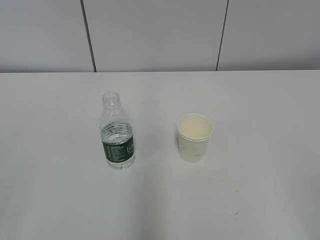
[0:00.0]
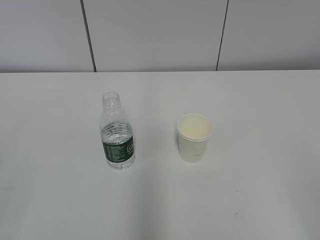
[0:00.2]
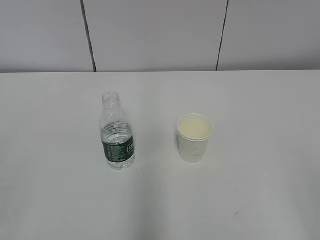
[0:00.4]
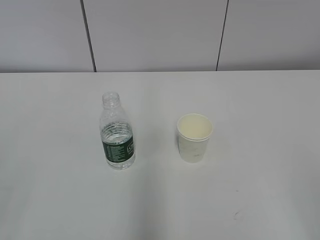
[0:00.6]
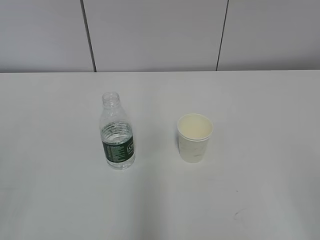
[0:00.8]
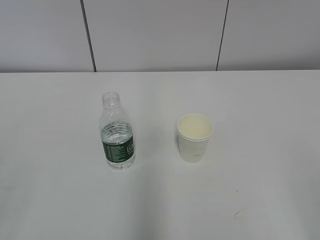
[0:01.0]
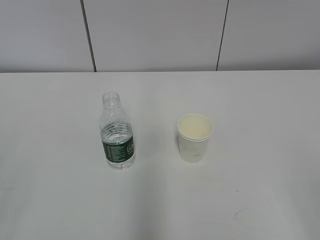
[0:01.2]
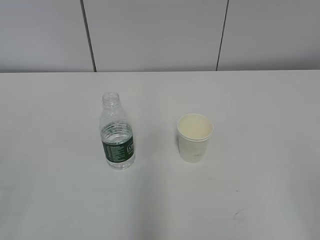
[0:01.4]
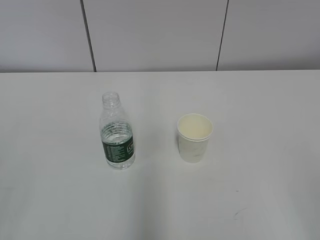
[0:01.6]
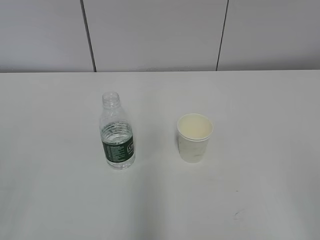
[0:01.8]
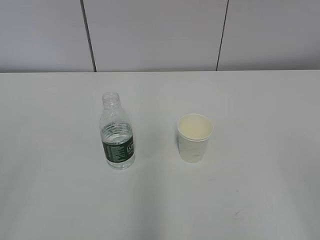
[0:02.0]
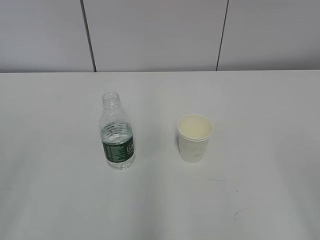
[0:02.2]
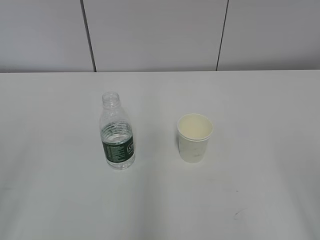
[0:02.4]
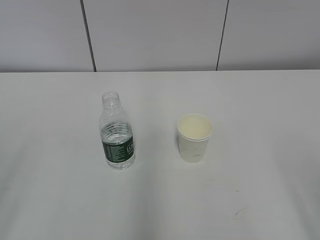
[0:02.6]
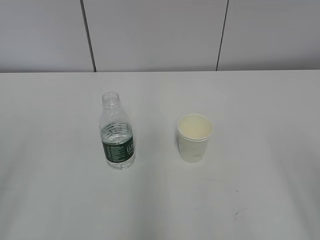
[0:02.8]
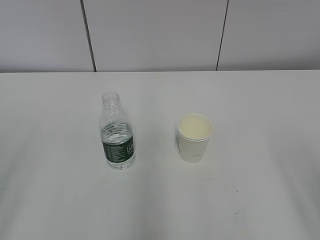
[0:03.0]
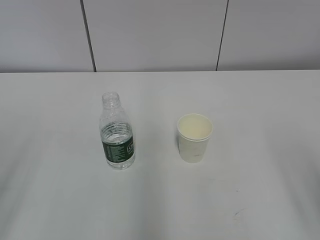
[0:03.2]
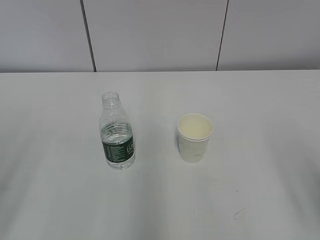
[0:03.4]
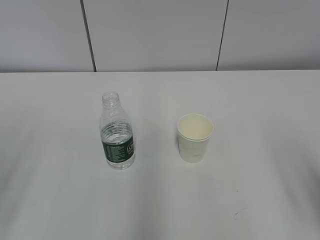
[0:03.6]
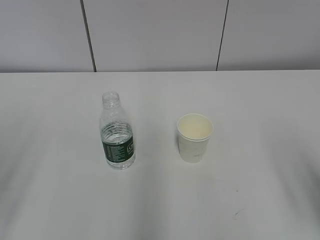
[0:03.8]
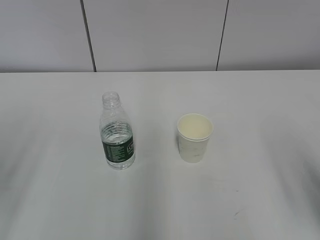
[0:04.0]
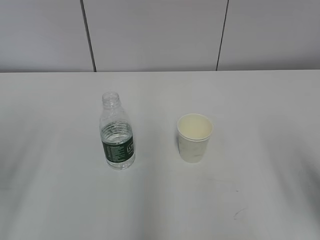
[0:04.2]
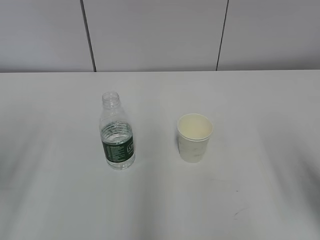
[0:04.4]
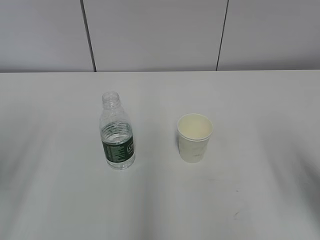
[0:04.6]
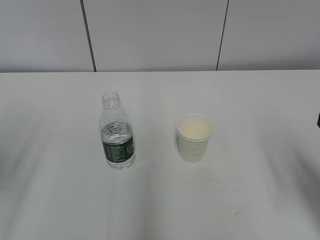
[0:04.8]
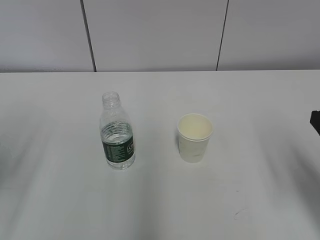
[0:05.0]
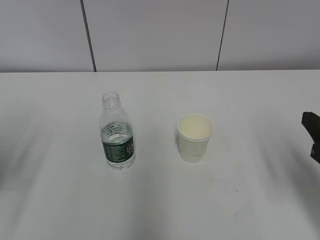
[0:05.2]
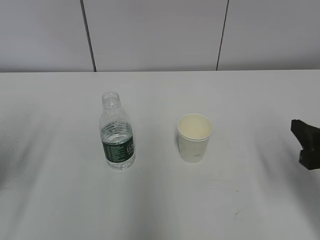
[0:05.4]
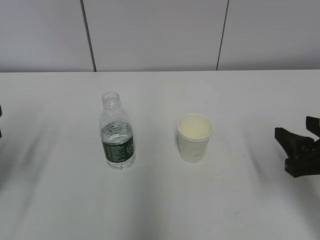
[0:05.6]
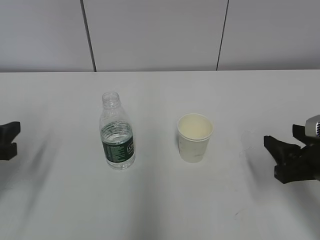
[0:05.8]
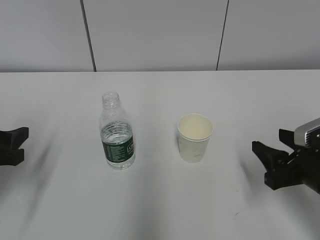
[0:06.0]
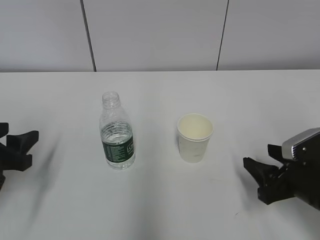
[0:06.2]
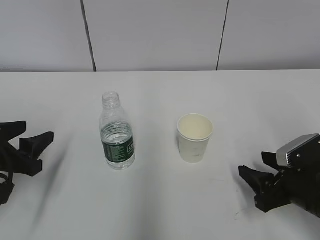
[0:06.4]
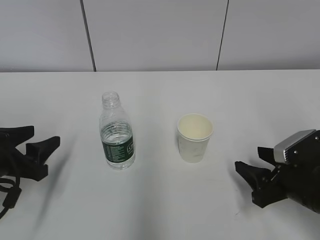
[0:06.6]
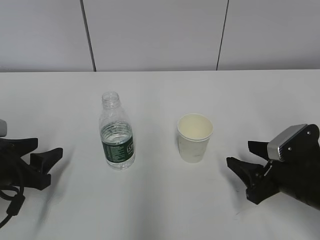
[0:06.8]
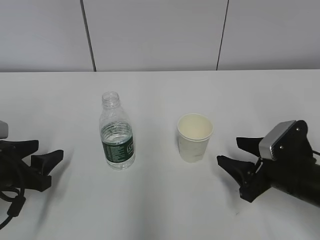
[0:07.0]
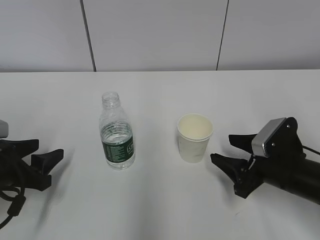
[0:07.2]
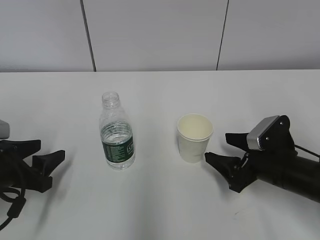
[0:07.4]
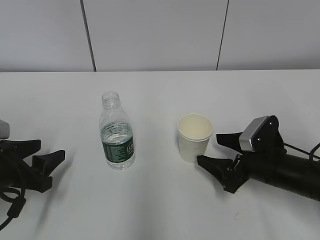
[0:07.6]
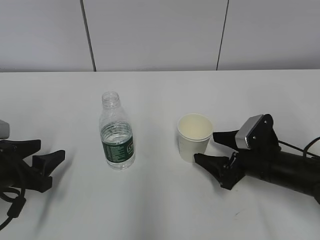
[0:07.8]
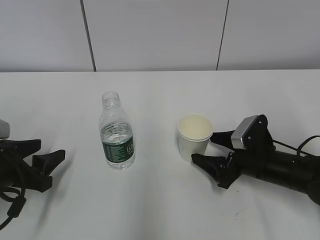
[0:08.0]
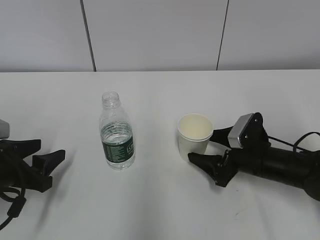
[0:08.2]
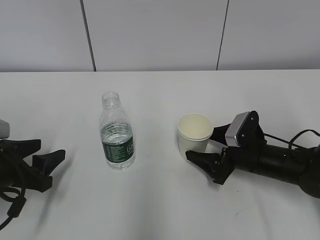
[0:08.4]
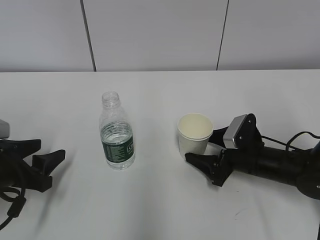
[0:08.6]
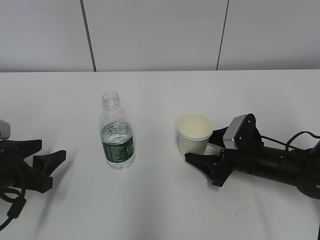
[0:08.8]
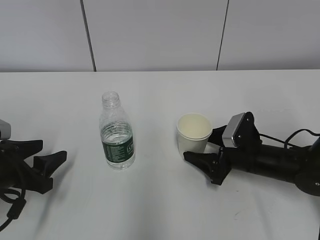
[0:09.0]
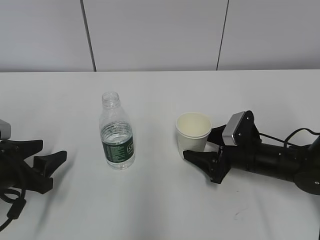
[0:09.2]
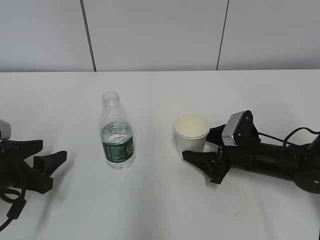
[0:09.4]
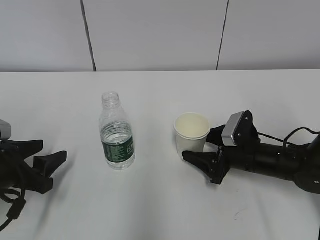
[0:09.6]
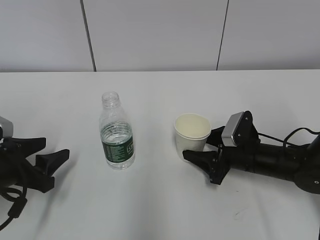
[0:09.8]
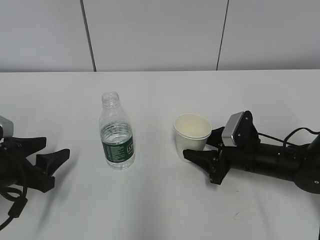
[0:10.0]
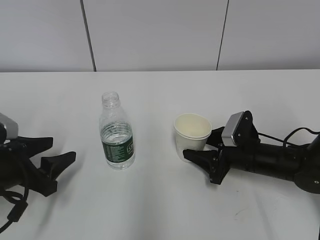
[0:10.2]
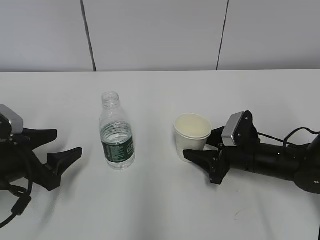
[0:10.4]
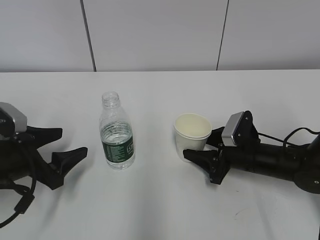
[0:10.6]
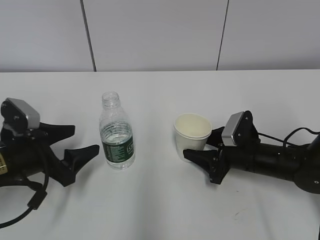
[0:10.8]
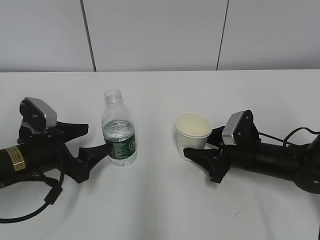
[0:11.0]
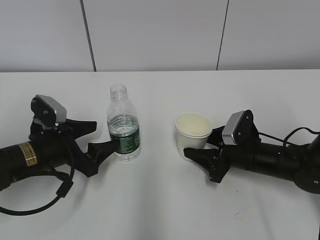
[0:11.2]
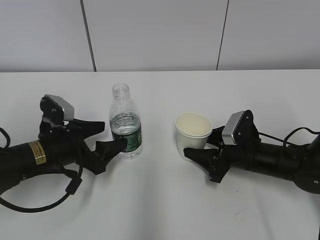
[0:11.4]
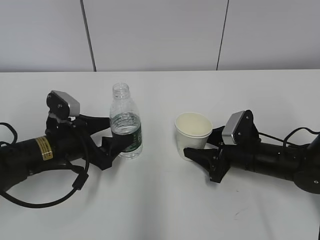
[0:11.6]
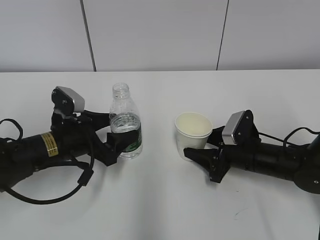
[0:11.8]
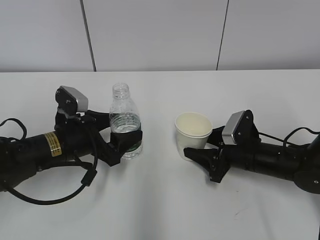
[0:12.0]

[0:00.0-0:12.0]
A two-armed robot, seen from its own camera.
Step, 0:00.0 to 0:08.0: Grab the paper cup with the right hand.
Step, 0:08.2 to 0:11.0: Grab the water bottle with the left hand.
0:03.0 to 0:04.4: The right gripper goes about 5 cm forward.
0:04.4 to 0:06.0: The two grippers go approximately 15 cm downward and forward.
0:06.0 to 0:07.6: The left gripper is displaced downward by roughly 5 cm. The right gripper moves forward and downward, approximately 10 cm, and opens up.
0:07.6 to 0:09.0: The right gripper ends up roughly 5 cm from where it was, and closes its fingers.
0:09.0 to 0:10.4: The right gripper closes its fingers.
0:10.4 to 0:12.0: The left gripper travels to the right and forward by some 10 cm.

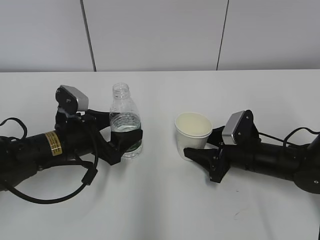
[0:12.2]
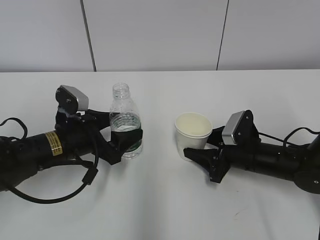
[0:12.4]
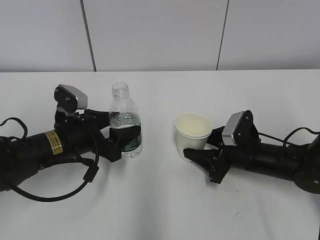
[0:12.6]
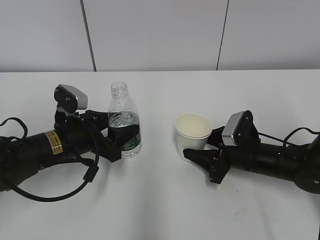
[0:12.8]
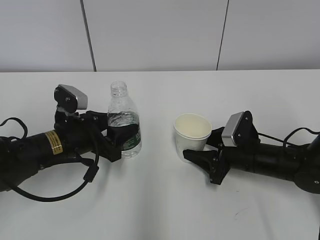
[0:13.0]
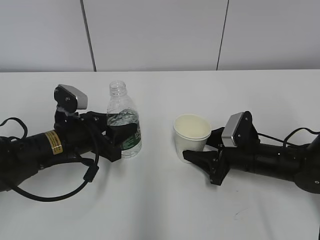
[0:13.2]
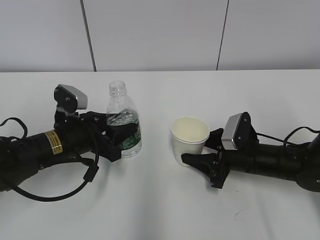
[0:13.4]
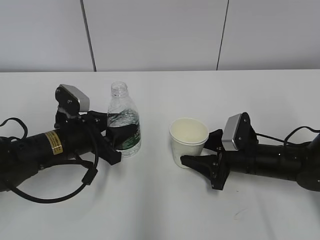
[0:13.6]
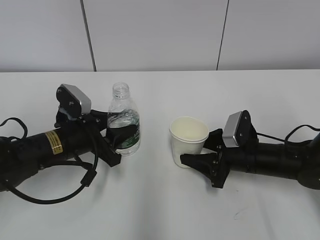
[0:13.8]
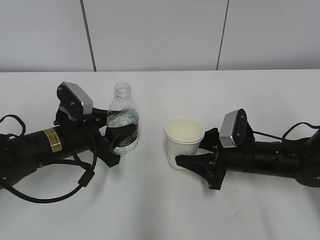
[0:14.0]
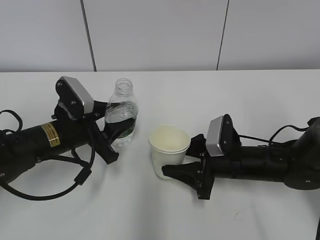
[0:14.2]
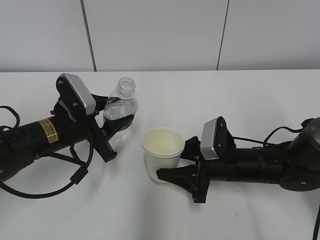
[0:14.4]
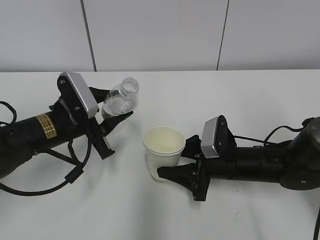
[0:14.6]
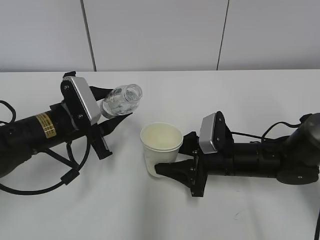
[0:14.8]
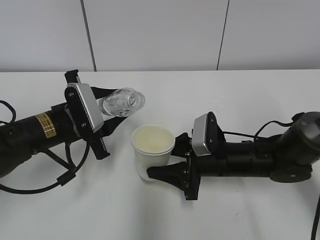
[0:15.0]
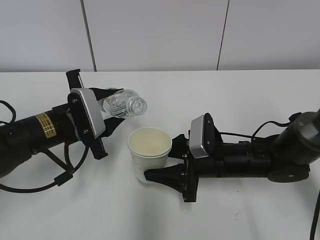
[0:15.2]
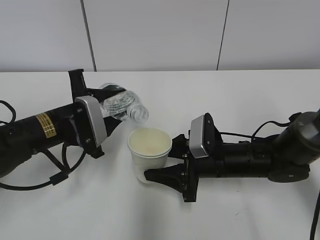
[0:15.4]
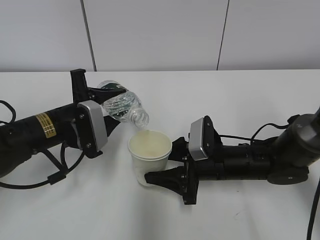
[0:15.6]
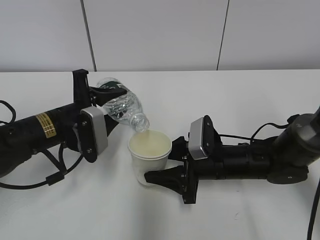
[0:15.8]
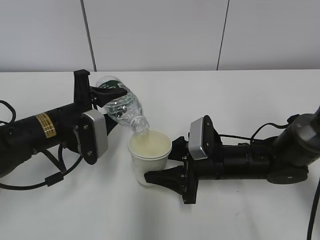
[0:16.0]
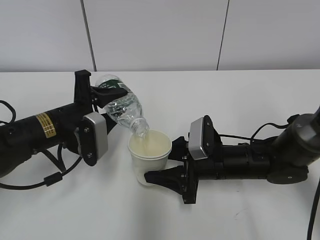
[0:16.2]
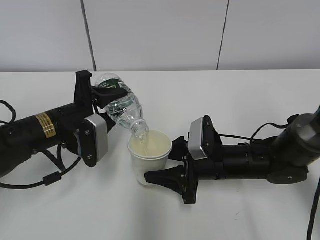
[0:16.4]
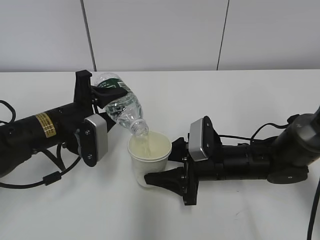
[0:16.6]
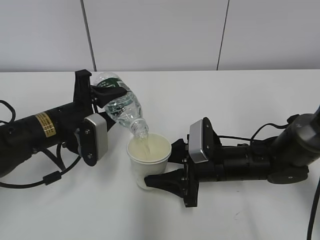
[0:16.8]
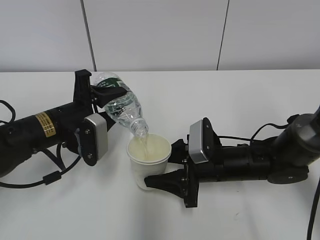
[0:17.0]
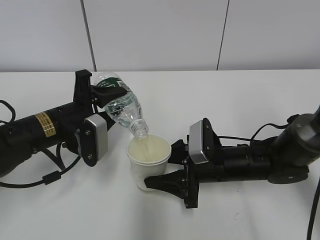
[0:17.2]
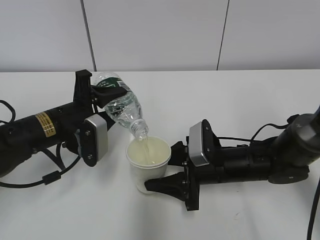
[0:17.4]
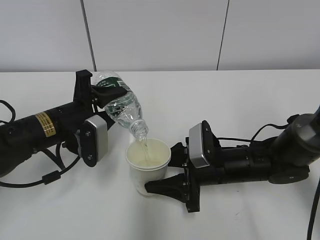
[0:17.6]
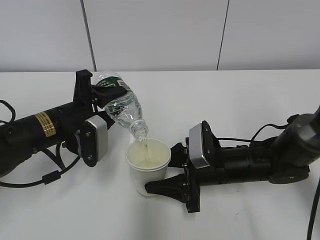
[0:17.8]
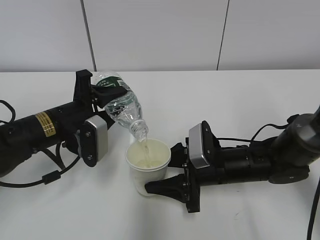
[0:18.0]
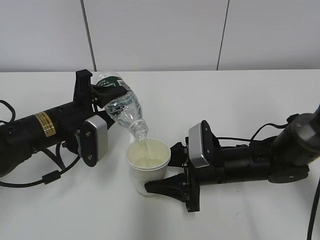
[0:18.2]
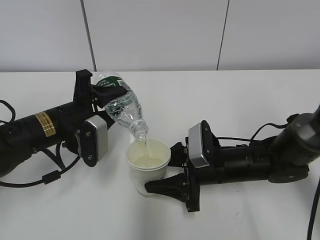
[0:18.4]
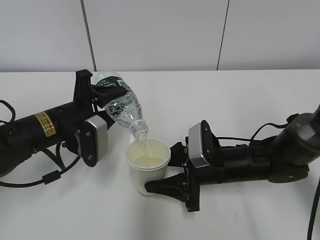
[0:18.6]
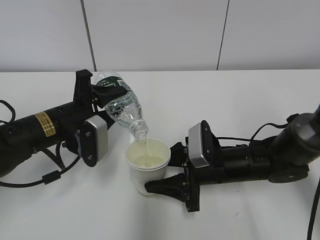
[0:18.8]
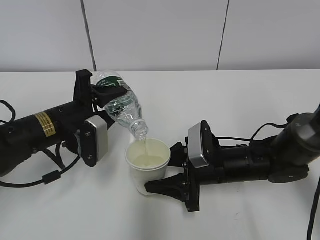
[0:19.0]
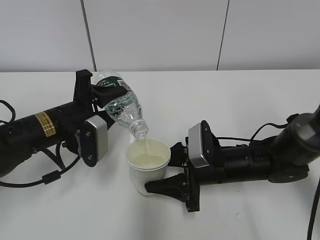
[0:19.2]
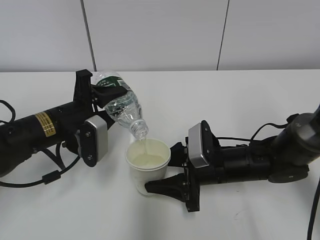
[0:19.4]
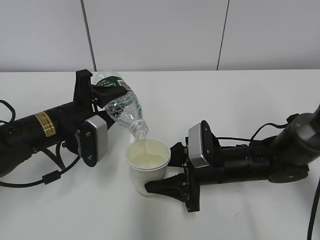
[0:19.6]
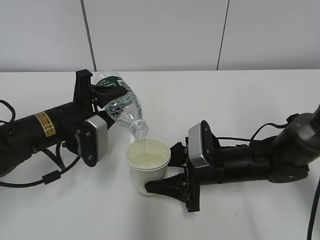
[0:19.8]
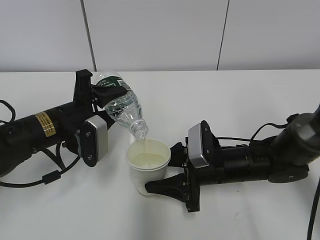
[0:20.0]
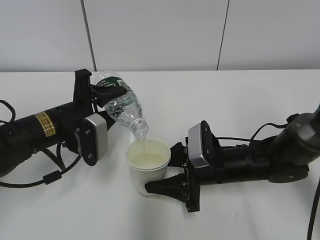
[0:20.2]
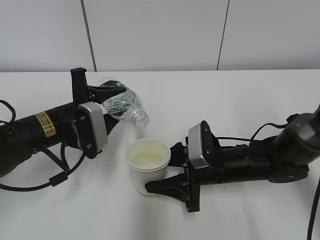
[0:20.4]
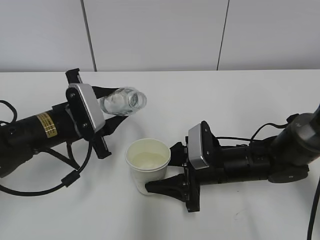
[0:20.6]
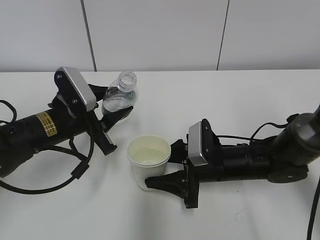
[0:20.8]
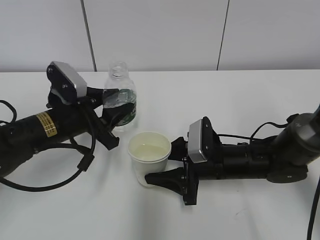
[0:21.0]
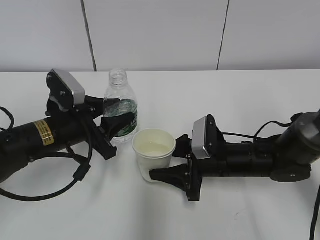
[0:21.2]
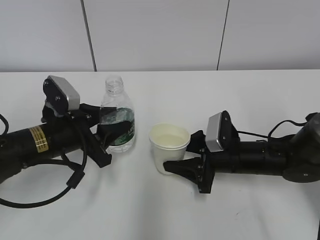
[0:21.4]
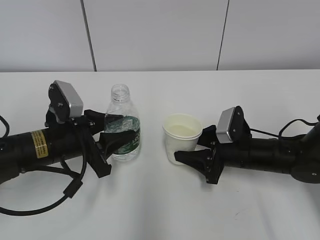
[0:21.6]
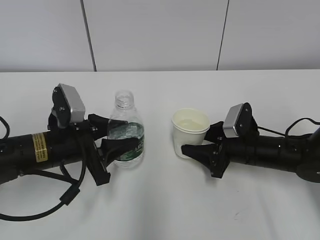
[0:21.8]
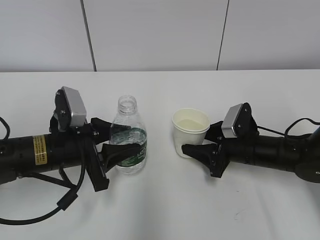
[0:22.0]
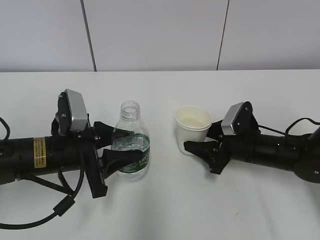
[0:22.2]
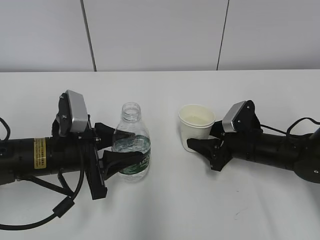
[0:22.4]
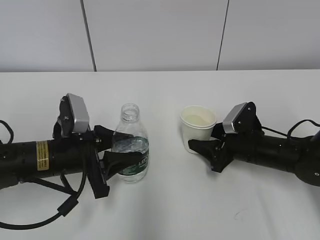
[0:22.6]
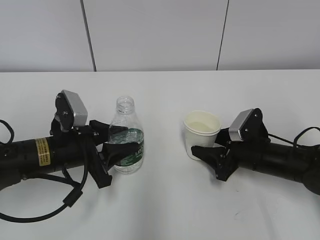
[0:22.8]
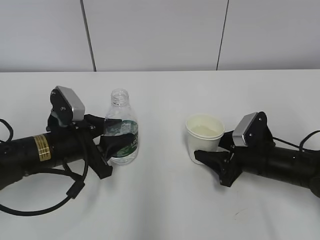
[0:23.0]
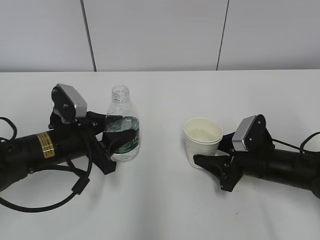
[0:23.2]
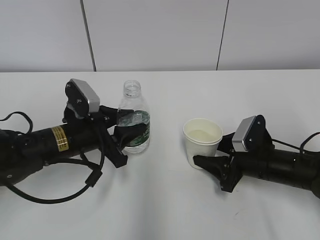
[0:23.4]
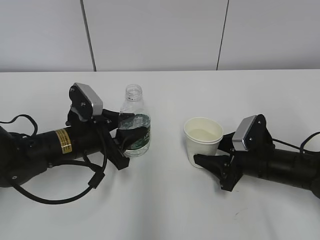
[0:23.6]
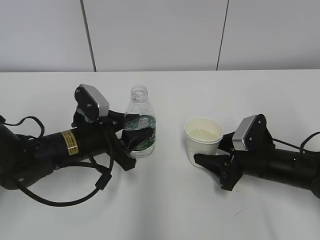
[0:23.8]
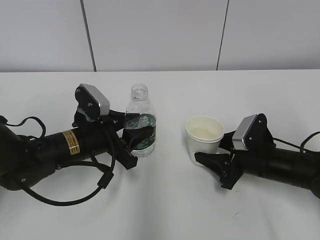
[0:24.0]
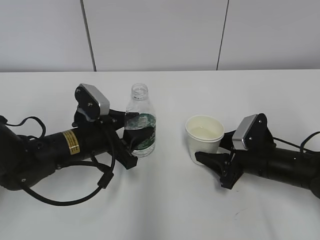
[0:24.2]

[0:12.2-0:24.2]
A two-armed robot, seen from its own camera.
Step, 0:13.2 to 0:17.0: Fill water with the right hand.
Step, 0:13.2 to 0:17.0: Pour water with the left hand.
Step, 0:17.6 to 0:20.2: Place the water bottle with the left hand.
Step, 0:20.4 to 0:21.2: Place the paper cup with the right hand.
0:12.2 to 0:13.8: The left gripper closes its fingers.
0:13.8 to 0:15.2: The right gripper shifts some 5 cm to the left.
0:16.6 to 0:19.8: Neither gripper changes place.
0:21.2 to 0:22.6: The right gripper heads to the right, covering some 10 cm.
0:22.6 to 0:24.2: The grippers move only a little.
